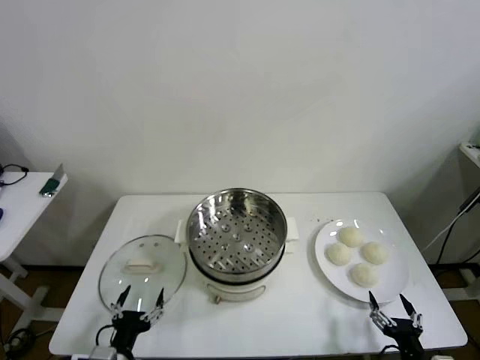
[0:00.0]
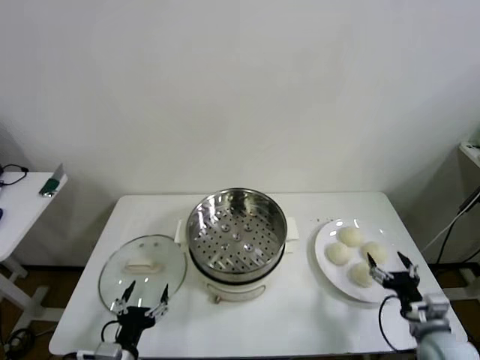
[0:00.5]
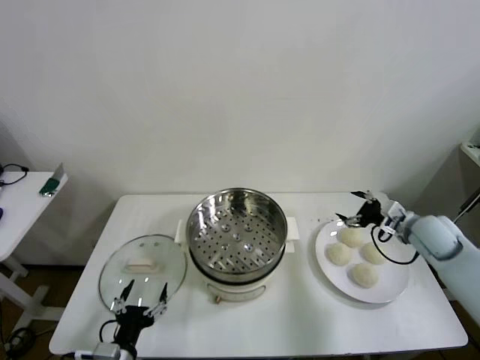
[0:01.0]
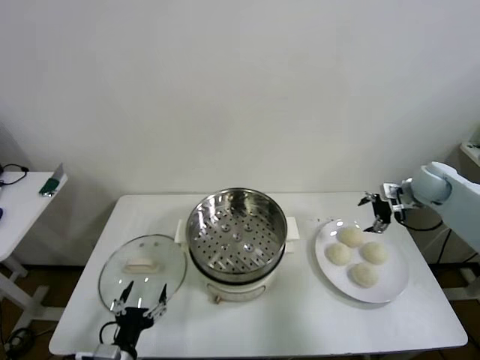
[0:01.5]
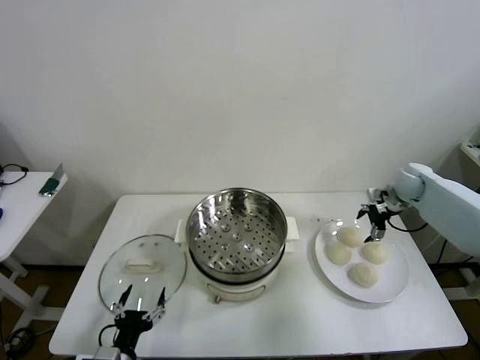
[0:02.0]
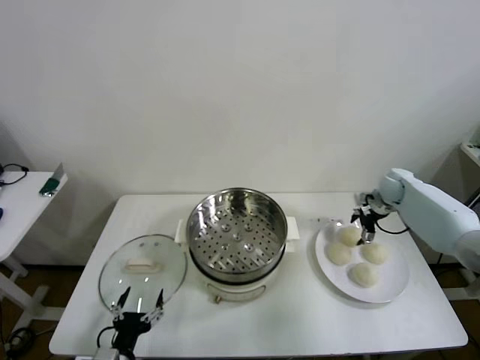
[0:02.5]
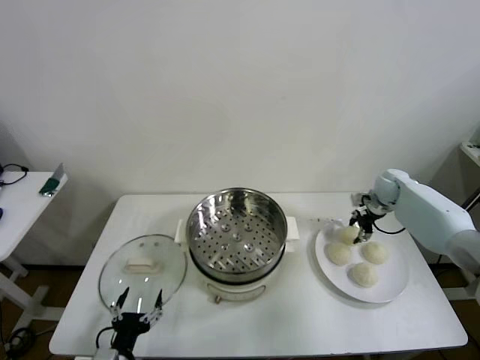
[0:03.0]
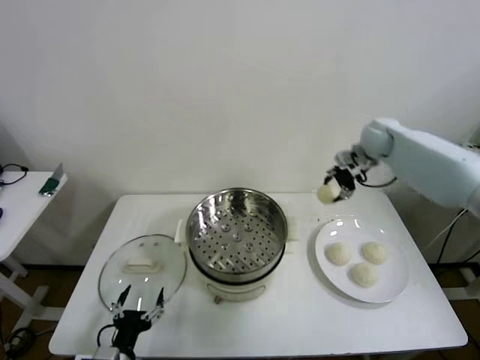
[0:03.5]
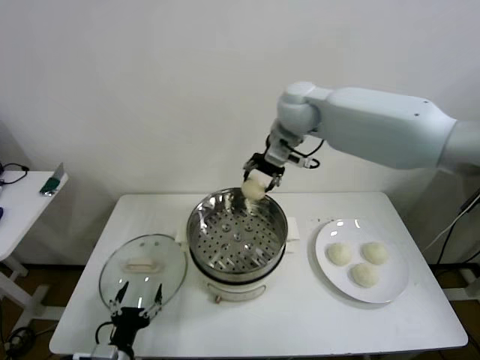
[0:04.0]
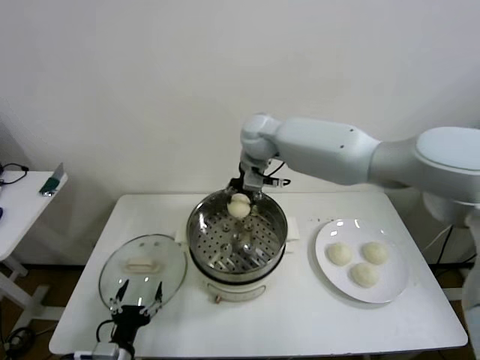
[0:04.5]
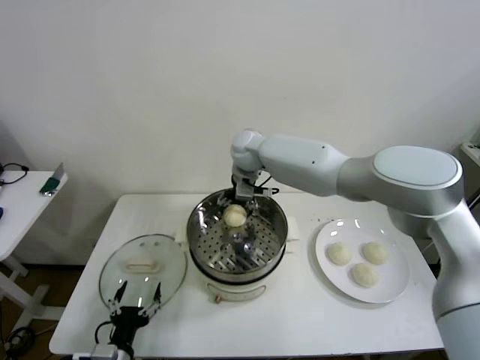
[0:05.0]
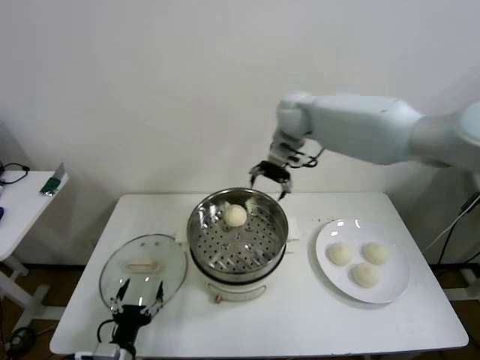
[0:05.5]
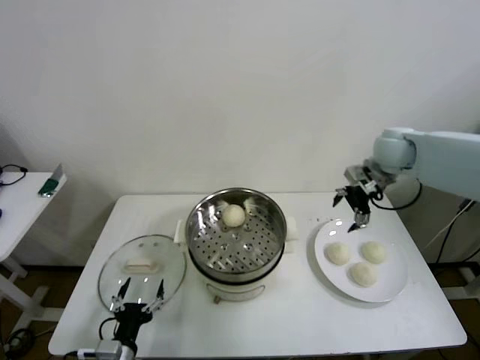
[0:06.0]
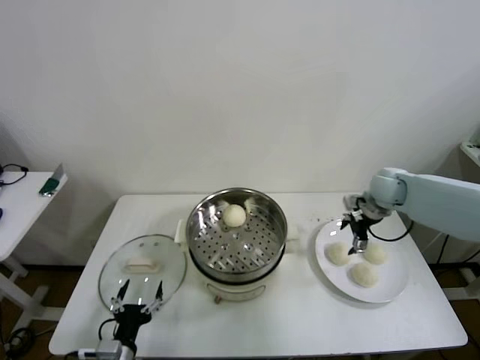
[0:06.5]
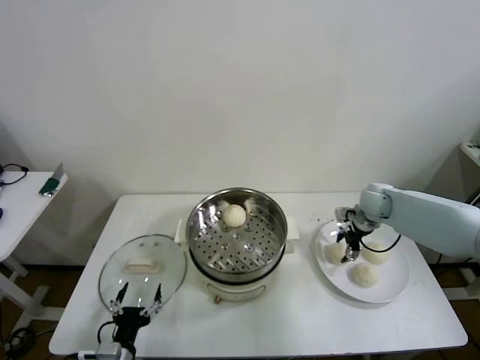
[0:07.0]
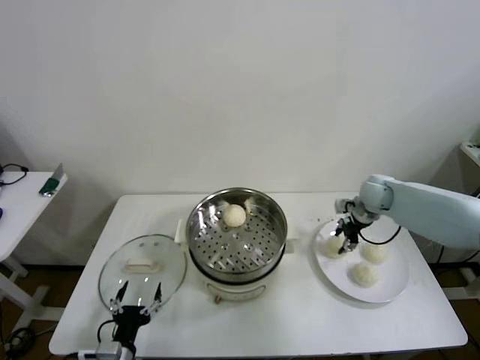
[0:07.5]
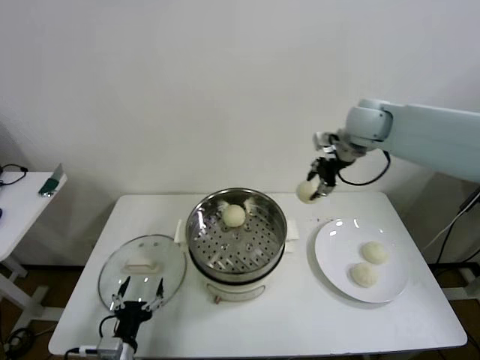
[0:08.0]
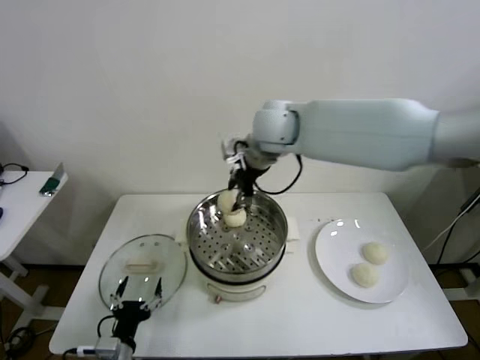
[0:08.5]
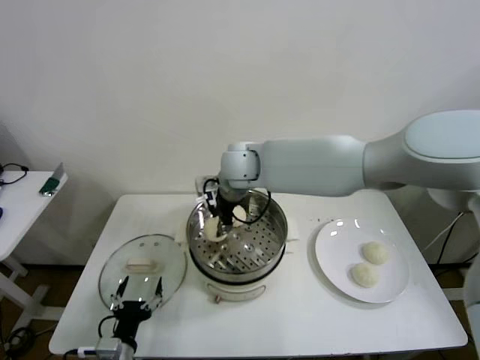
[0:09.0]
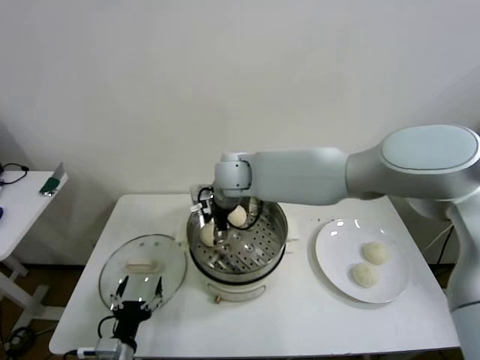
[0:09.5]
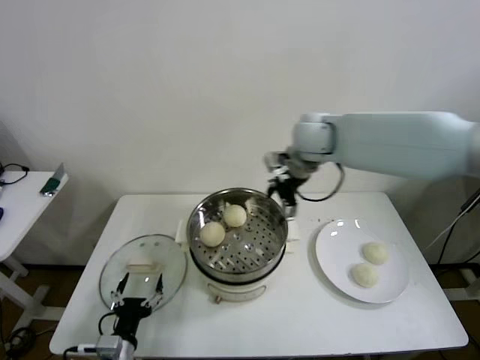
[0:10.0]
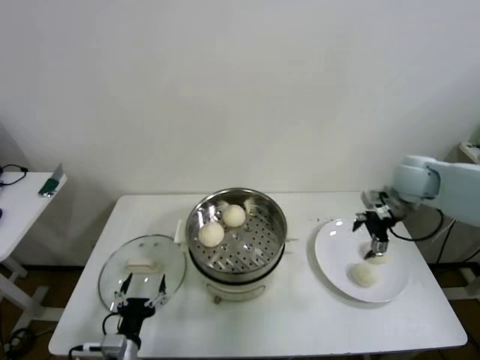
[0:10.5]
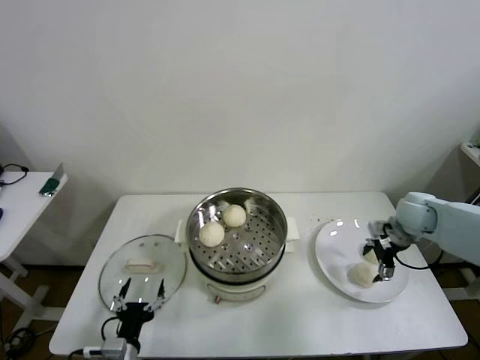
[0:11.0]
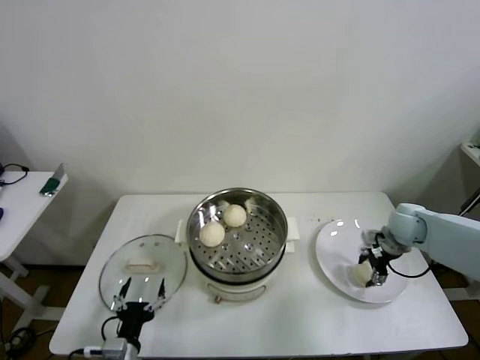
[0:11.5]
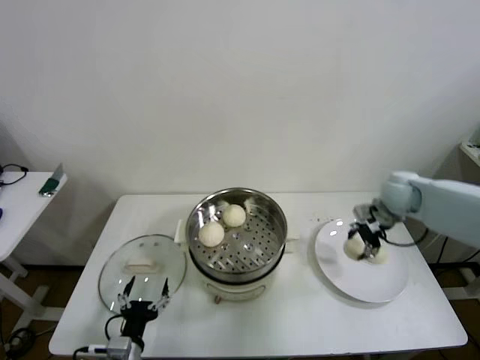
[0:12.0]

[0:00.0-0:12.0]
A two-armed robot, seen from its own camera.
Step, 0:00.0 to 0:02.5: Grasp the baozi in the plate with right gripper.
Step, 0:03.0 to 0:05.0: Place the baozi on the steamer with right gripper.
Step, 0:05.5 to 0:07.0: Grasp the baozi in the plate with right gripper.
Step, 0:07.5 to 0:09.5: Place the baozi on the steamer with right gripper.
Step, 0:10.0 to 0:11.0: Grasp the baozi in the plate with right gripper.
0:02.0 to 0:04.0: The right gripper shifts roughly 40 cm to the left and upward, and closes up.
0:04.0 to 0:06.0: The right gripper is displaced to the right and downward by approximately 30 cm, and opens its fingers.
0:06.0 to 0:08.0: The right gripper heads to the left and upward, covering roughly 15 cm, and closes its fingers.
0:08.0 to 0:10.0: The right gripper moves roughly 25 cm to the left and comes back, and opens its fingers.
0:10.0 to 0:12.0: The right gripper shifts some 20 cm to the right and downward, and closes.

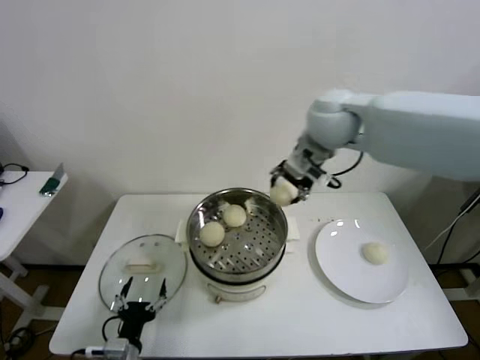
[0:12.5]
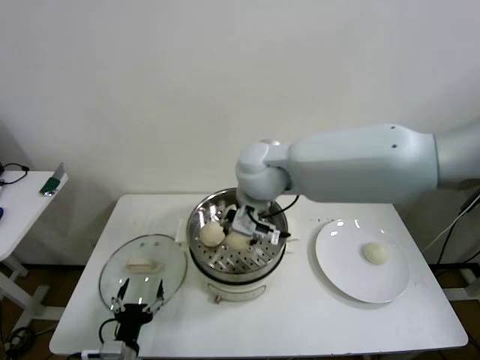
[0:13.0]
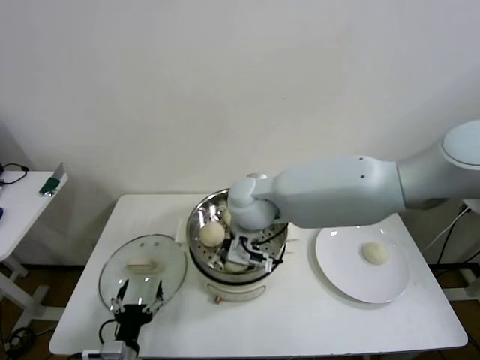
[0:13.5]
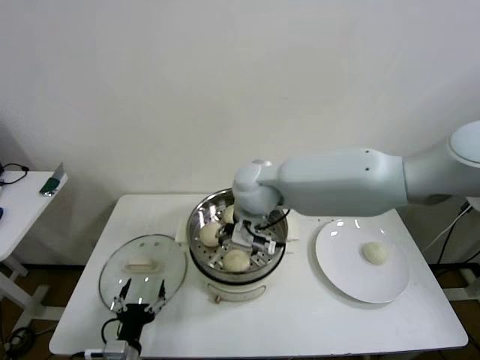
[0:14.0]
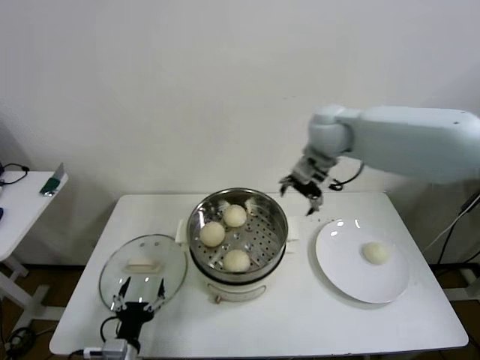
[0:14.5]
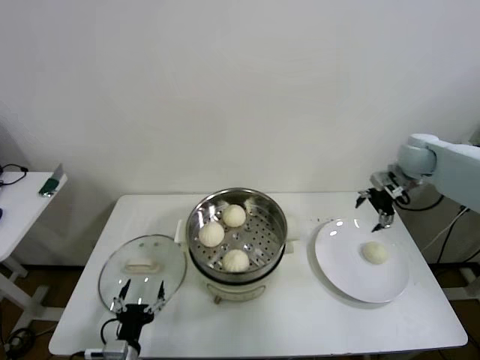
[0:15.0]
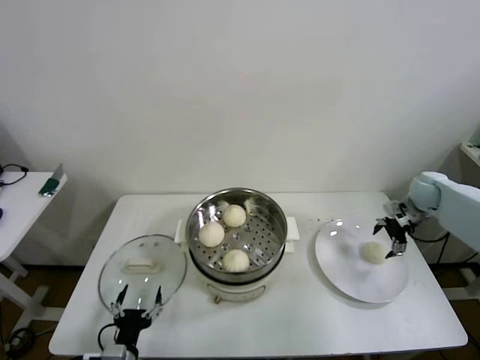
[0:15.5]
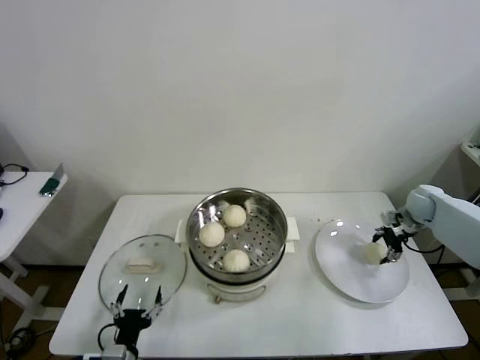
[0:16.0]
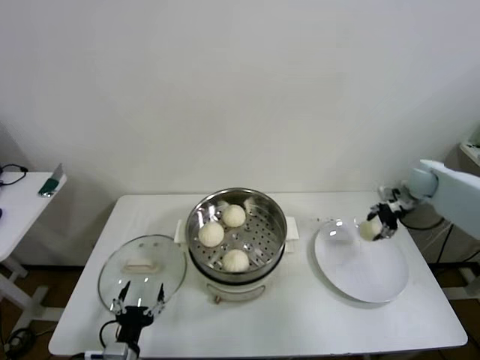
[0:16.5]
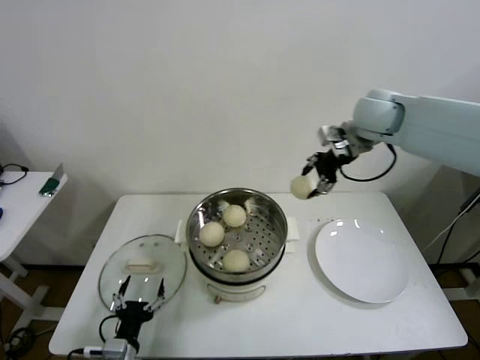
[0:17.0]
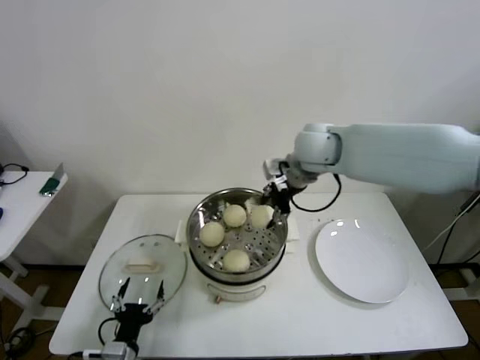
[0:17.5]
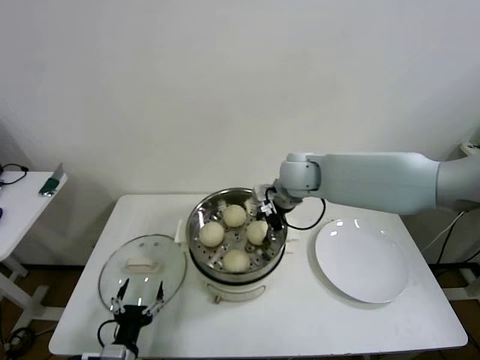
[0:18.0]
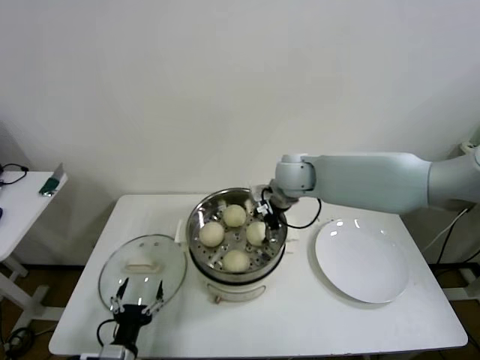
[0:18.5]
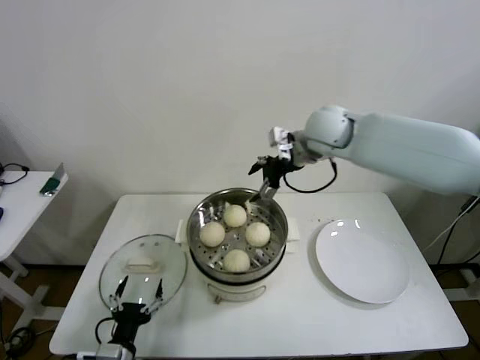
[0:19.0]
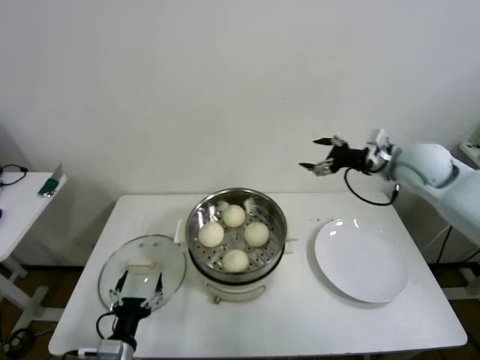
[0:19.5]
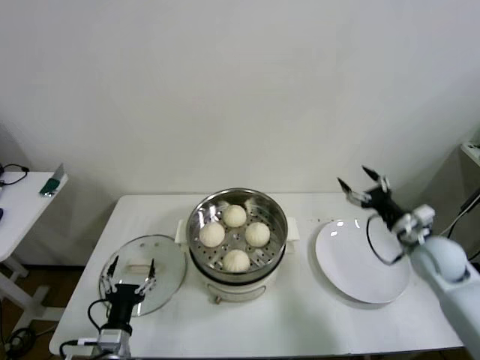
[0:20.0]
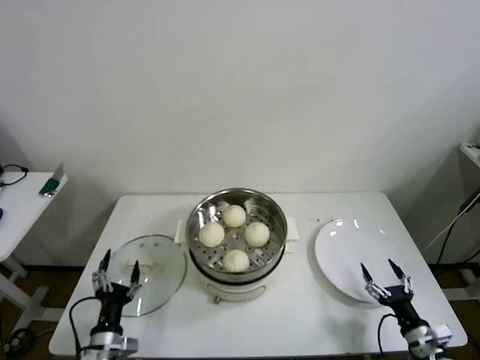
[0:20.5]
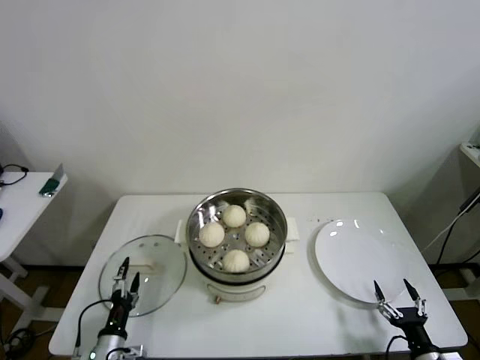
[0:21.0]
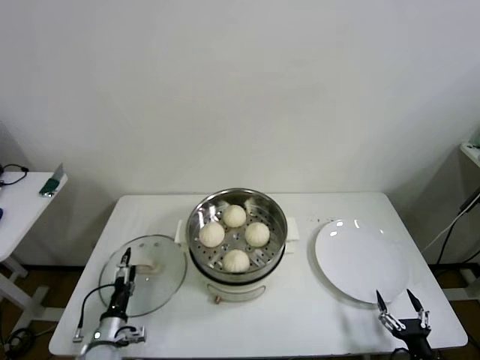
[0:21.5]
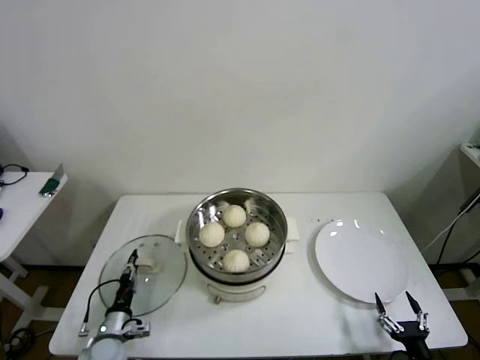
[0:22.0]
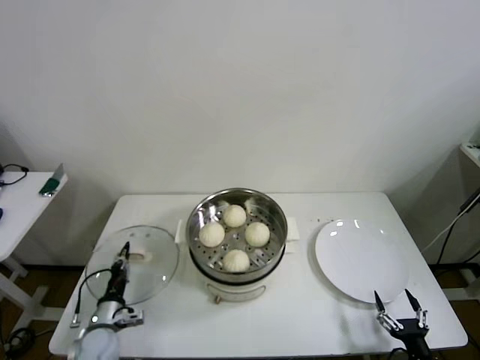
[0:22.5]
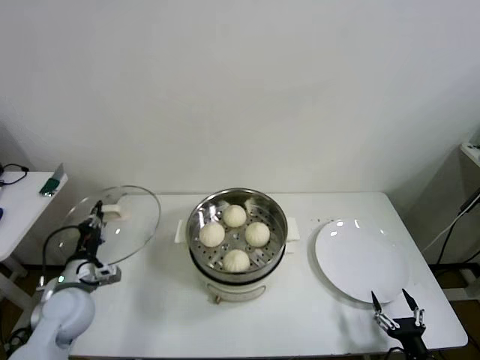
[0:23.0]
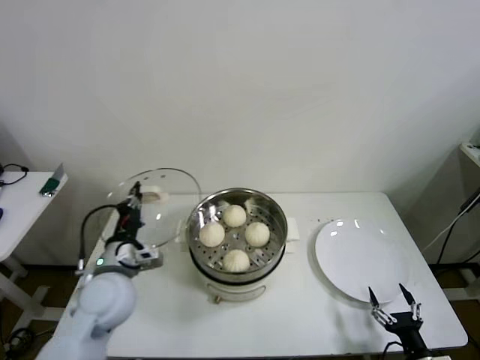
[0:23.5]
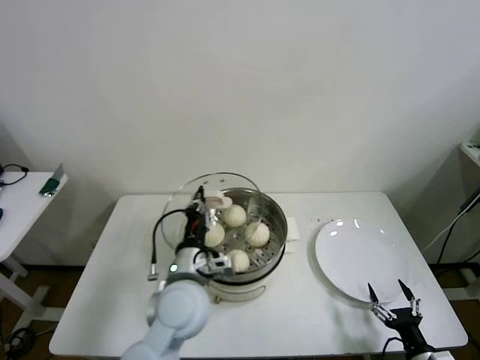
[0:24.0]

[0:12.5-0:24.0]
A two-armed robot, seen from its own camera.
Step, 0:14.0 to 0:16.0: Grasp the baozi in the plate with right gripper.
Step, 0:16.5 to 0:18.5: Place the baozi on the steamer with right gripper.
Step, 0:19.0 to 0:22.0: Grasp the pot lid with left gripper.
0:12.5 to 0:14.5: The right gripper is displaced to the right and forward by roughly 10 cm, and opens.
0:14.5 to 0:16.5: The right gripper goes some 30 cm to the right and downward, and closes its fingers.
0:16.5 to 0:18.5: The right gripper heads to the left, covering roughly 35 cm, and opens.
0:18.5 to 0:20.0: The right gripper is displaced to the right, backward and downward by some 35 cm.
0:20.0 to 0:22.0: The left gripper goes approximately 15 cm downward, forward and to the left, and closes up. The right gripper heads backward and downward, covering some 35 cm.
0:22.0 to 0:24.0: The left gripper shifts some 30 cm upward and to the right, and closes up.

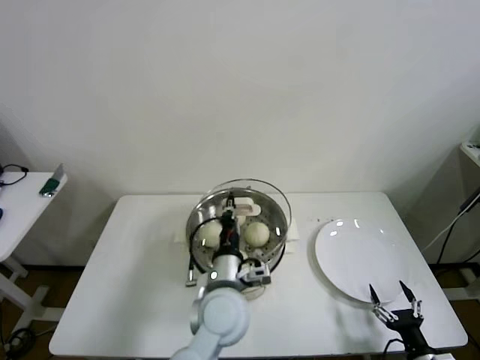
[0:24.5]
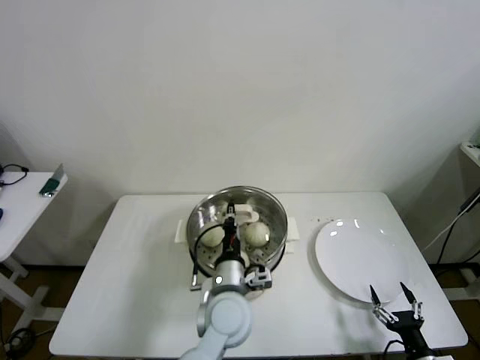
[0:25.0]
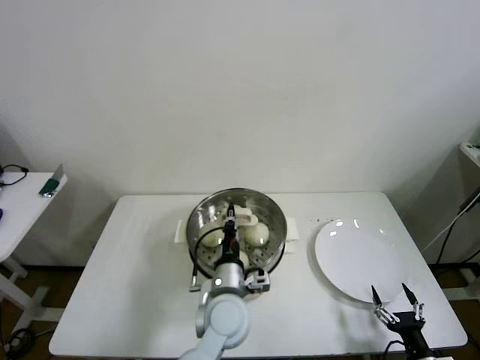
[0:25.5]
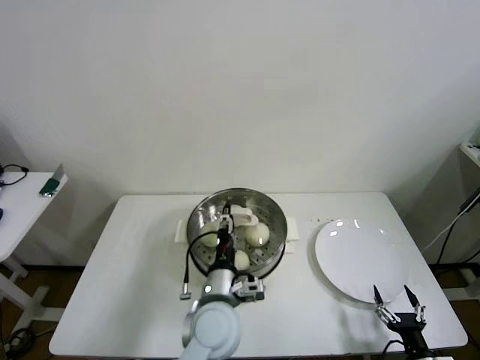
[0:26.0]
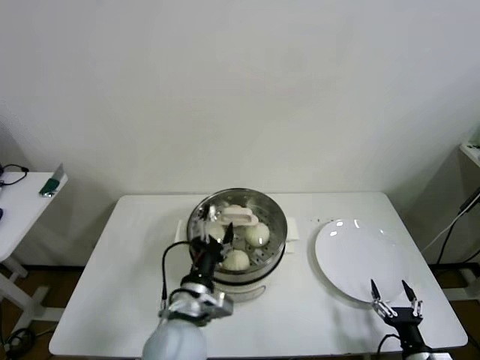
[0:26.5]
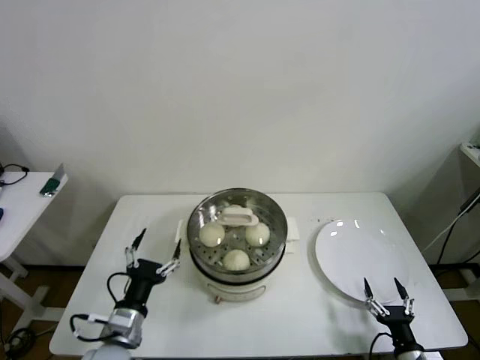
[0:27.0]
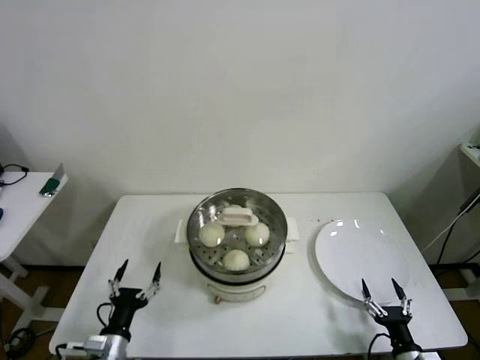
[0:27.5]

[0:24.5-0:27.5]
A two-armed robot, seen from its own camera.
0:24.5 to 0:26.0: The left gripper opens up.
0:26.0 to 0:27.5: The left gripper moves to the left and downward, about 25 cm, and opens its fingers.
